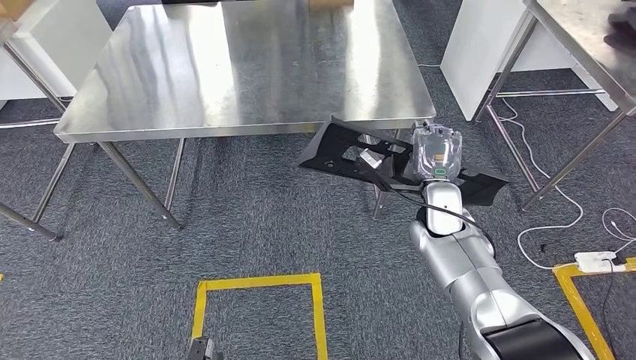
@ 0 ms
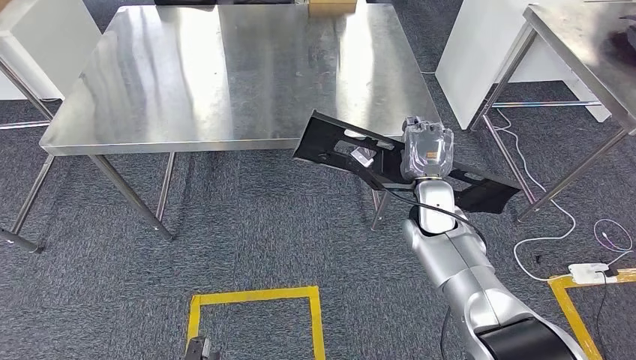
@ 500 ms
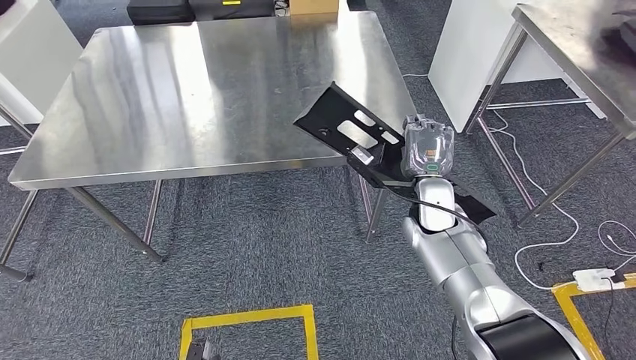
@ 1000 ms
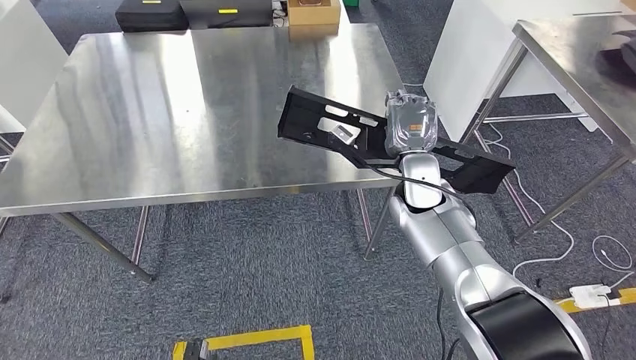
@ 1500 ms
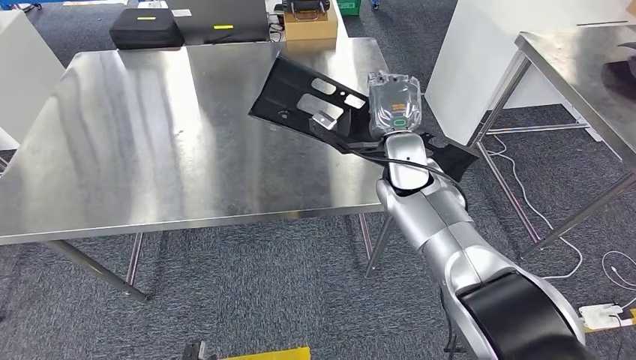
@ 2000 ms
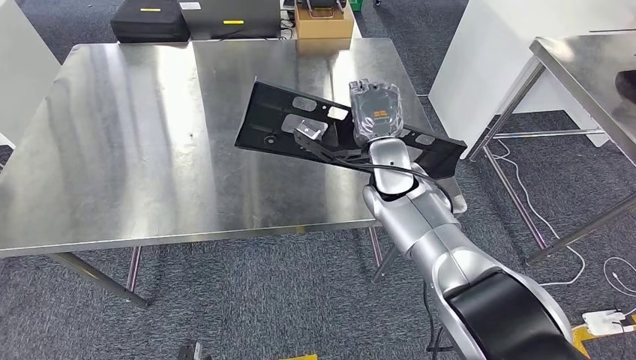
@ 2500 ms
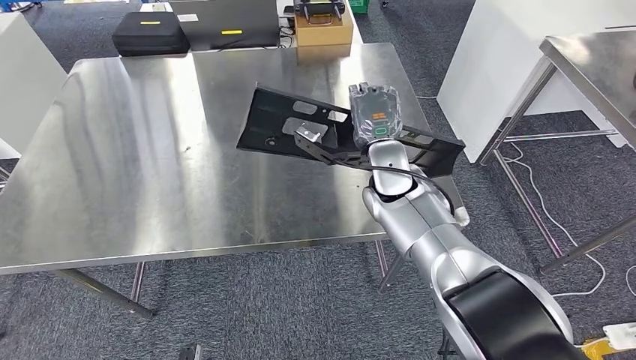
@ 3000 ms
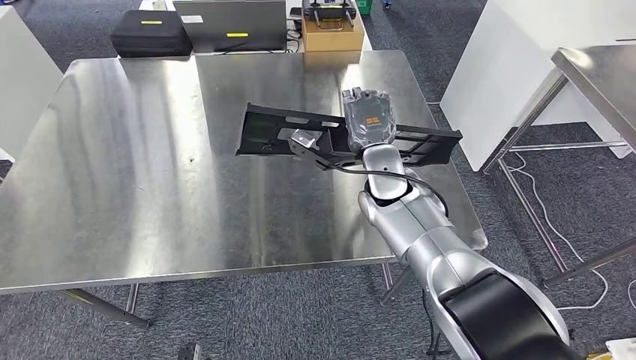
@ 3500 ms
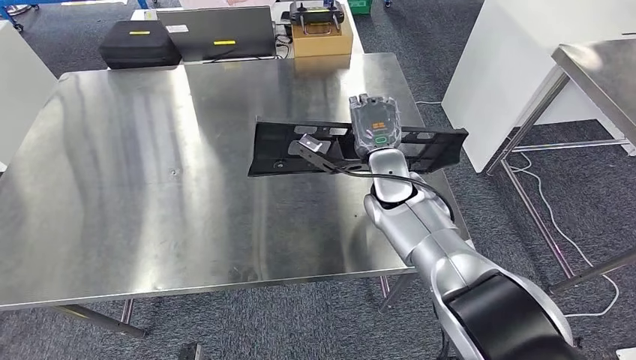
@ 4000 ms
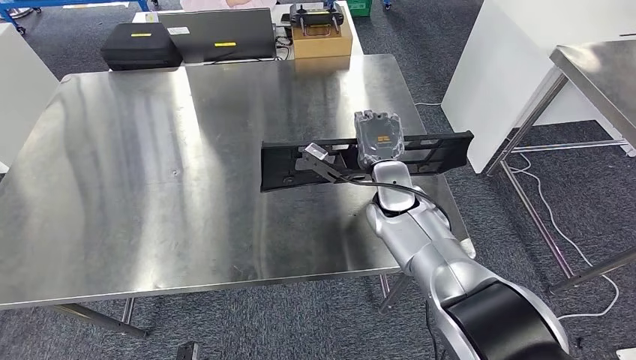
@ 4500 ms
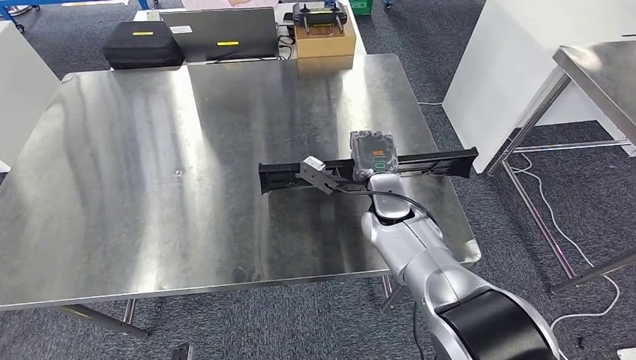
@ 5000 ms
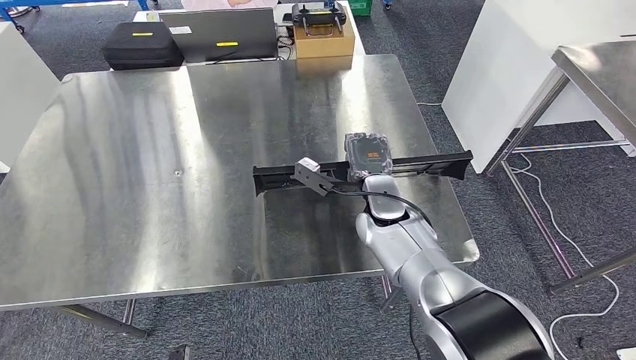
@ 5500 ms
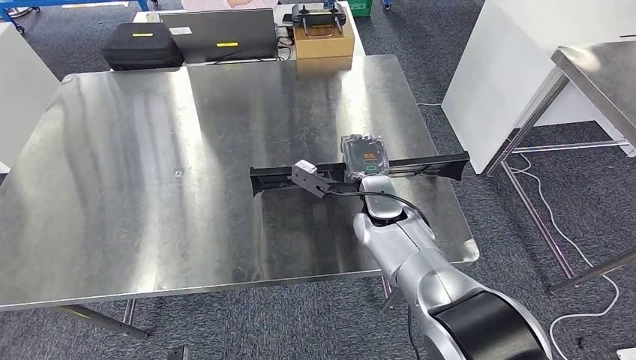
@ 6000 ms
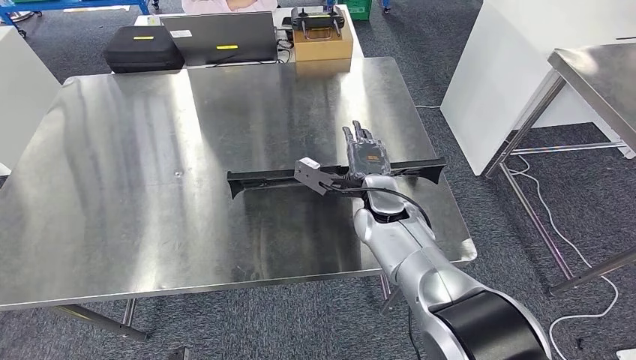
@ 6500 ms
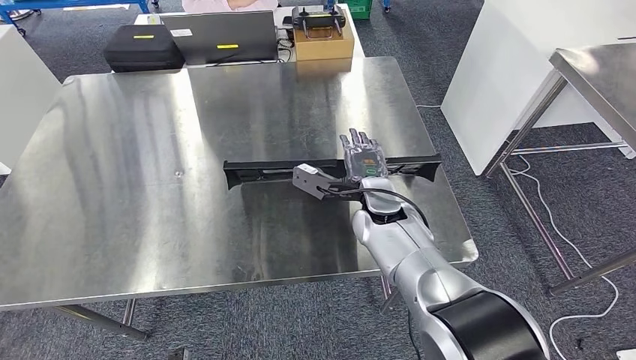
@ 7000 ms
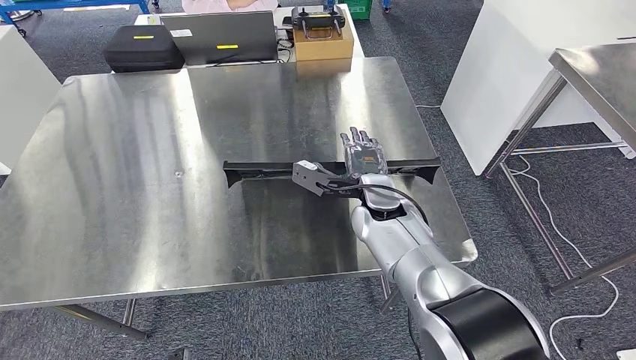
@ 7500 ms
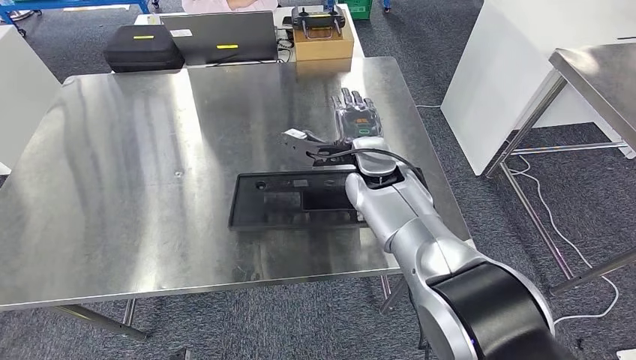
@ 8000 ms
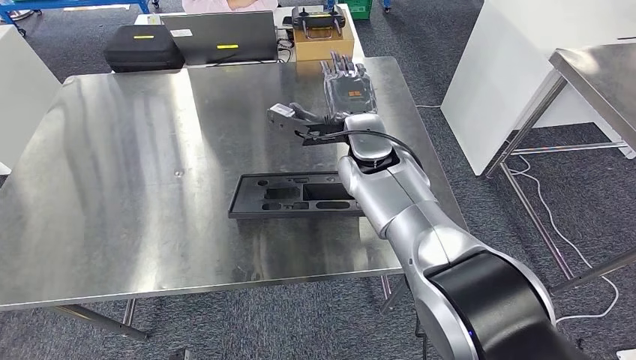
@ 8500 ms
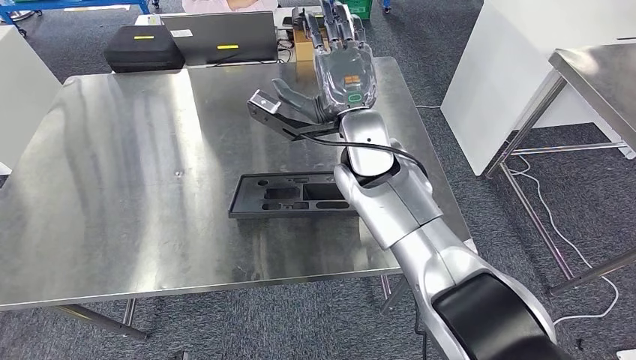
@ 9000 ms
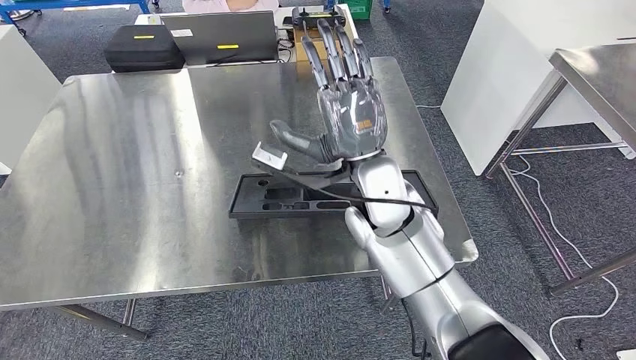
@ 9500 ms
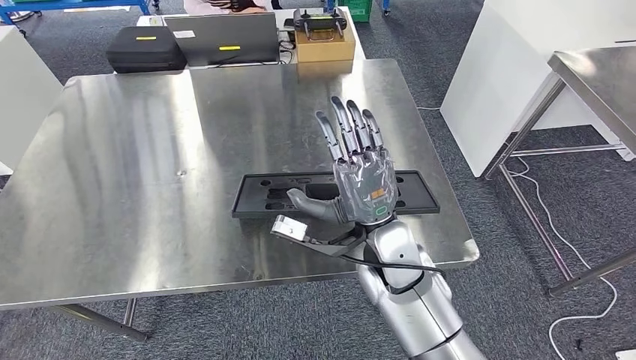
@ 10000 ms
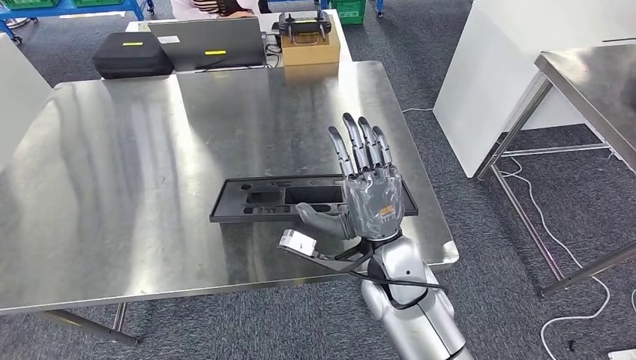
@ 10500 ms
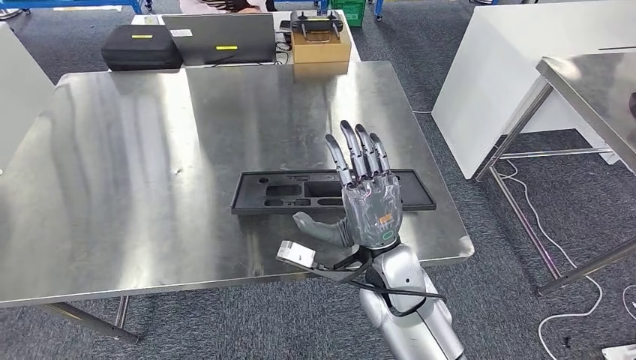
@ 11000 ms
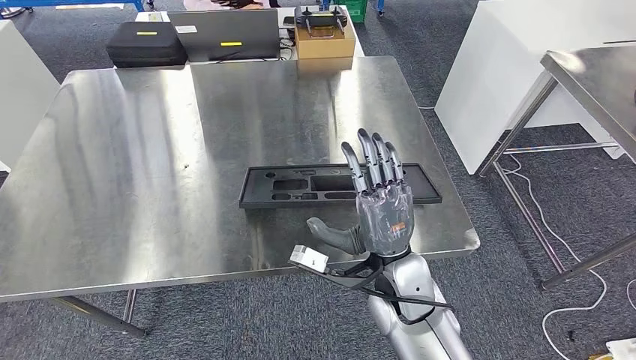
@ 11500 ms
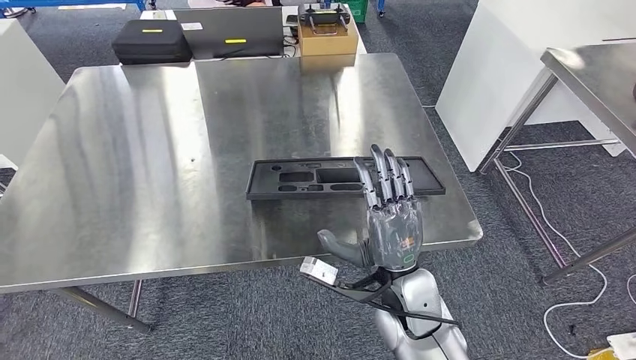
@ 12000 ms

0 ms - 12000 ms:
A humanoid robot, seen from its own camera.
Step, 0 ms - 9500 ms: Insert the large material into the corresponding slot on the workbench.
4000 ms - 6000 ms: The right hand moves roughly 5 cm.
6000 ms - 8000 ms: The right hand heads upward, covering roughly 5 cm.
8000 ms - 10000 ms: The right hand shifts approximately 10 cm backward.

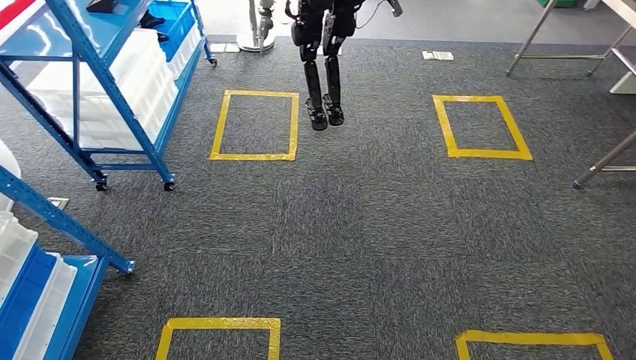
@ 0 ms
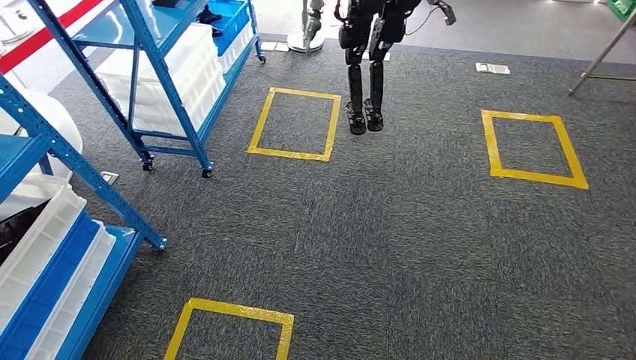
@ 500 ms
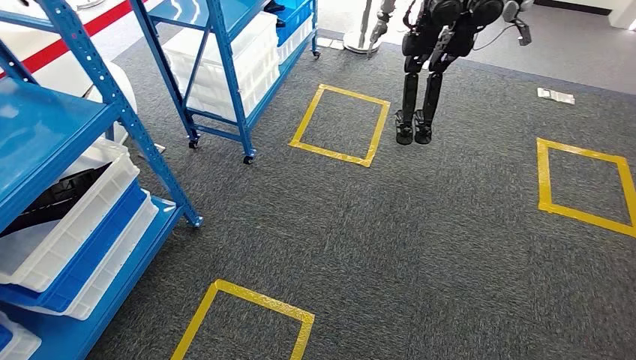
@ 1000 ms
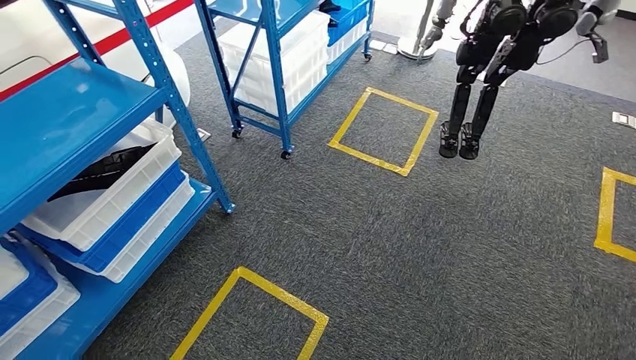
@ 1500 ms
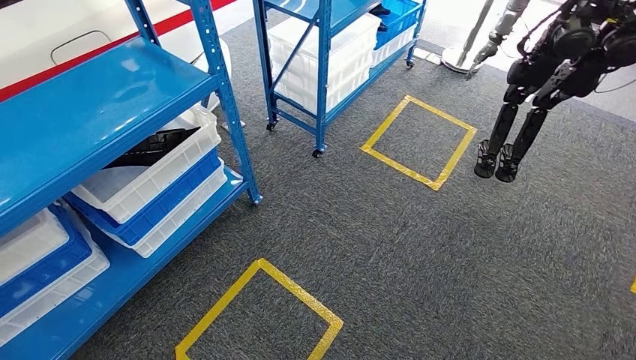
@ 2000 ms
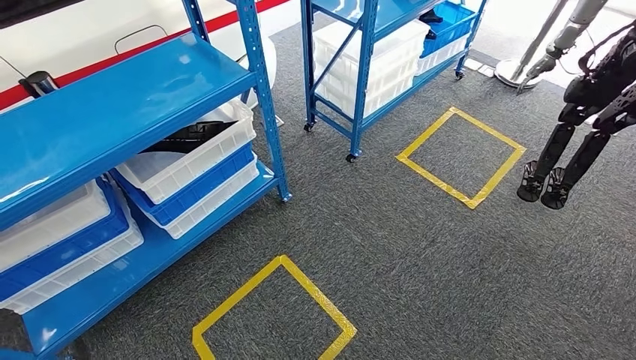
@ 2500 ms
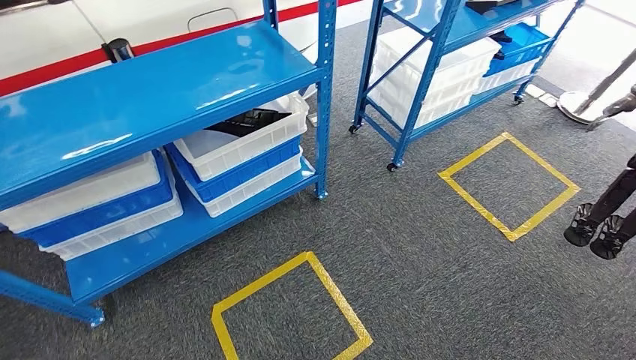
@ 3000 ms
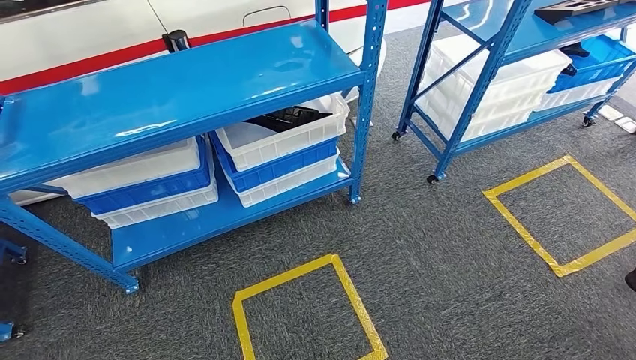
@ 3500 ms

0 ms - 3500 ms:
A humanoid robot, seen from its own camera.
Step, 0 ms - 3000 ms: Move to the initial position of the shelf.
